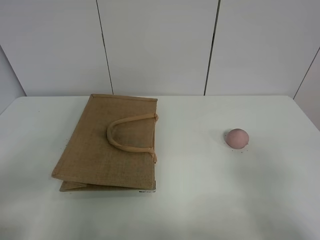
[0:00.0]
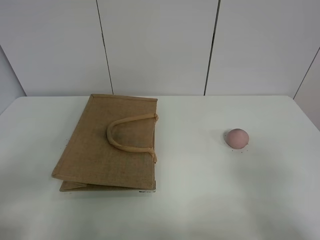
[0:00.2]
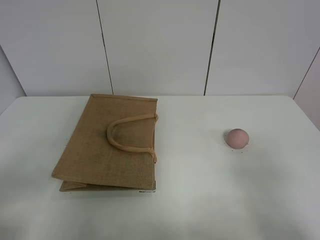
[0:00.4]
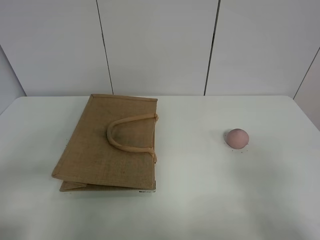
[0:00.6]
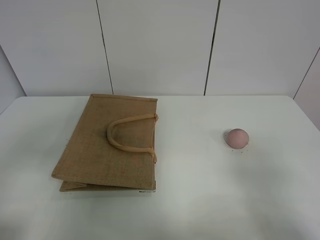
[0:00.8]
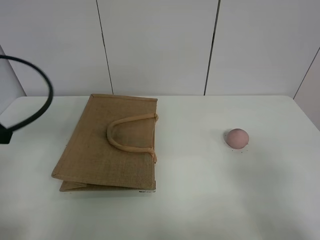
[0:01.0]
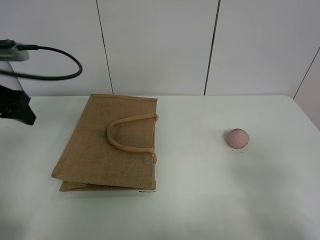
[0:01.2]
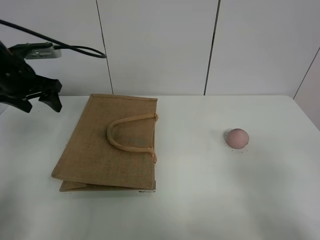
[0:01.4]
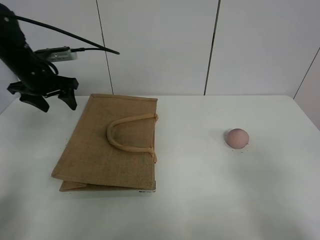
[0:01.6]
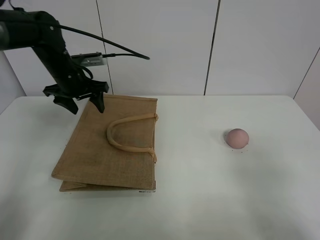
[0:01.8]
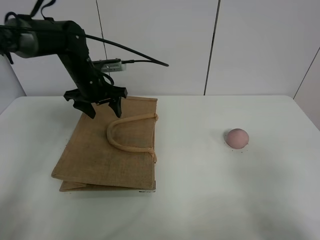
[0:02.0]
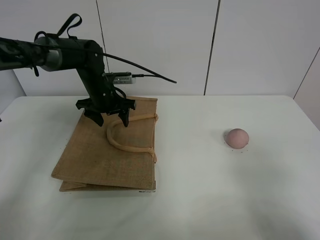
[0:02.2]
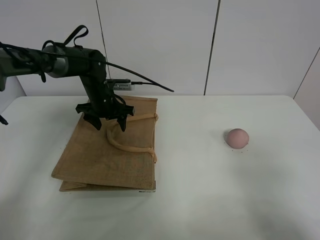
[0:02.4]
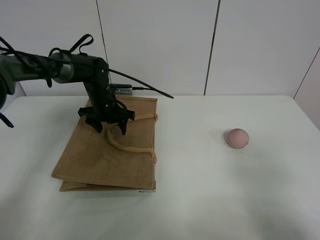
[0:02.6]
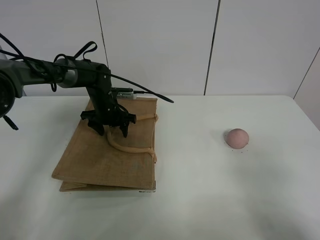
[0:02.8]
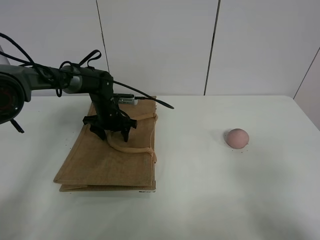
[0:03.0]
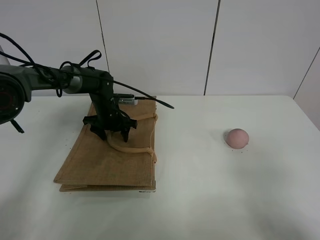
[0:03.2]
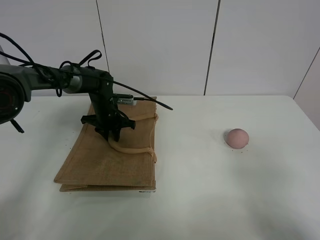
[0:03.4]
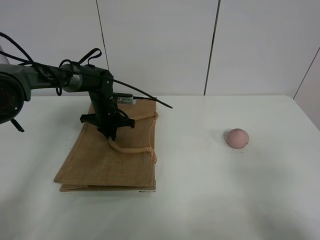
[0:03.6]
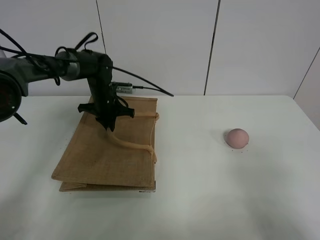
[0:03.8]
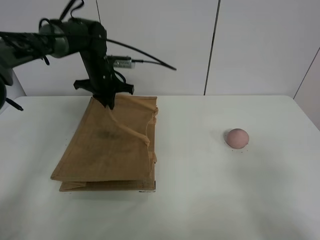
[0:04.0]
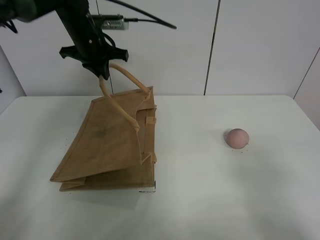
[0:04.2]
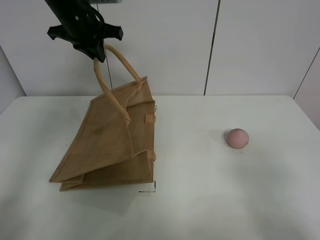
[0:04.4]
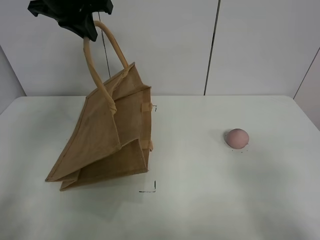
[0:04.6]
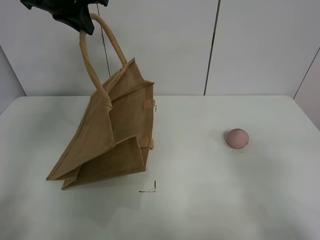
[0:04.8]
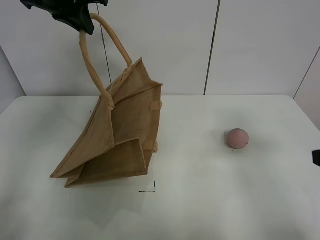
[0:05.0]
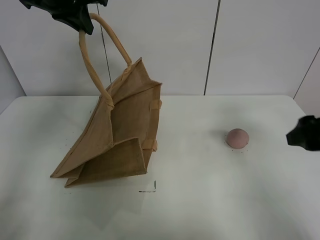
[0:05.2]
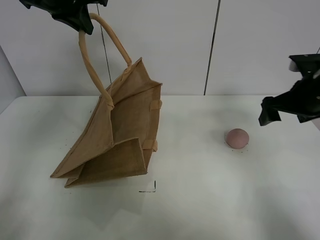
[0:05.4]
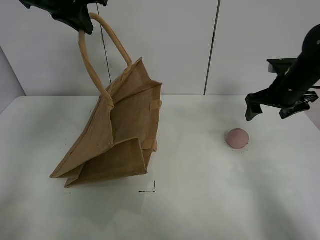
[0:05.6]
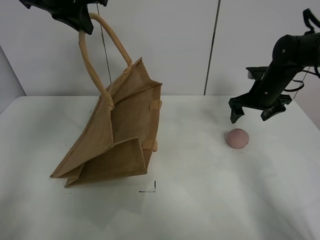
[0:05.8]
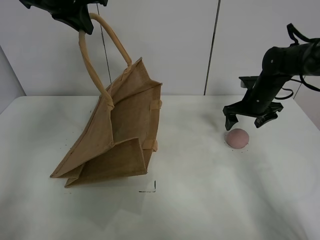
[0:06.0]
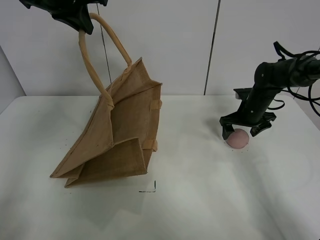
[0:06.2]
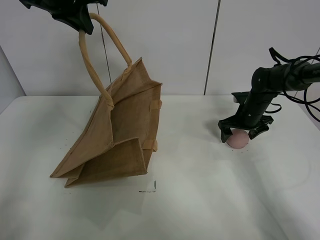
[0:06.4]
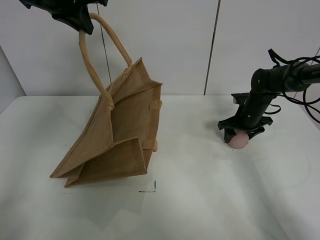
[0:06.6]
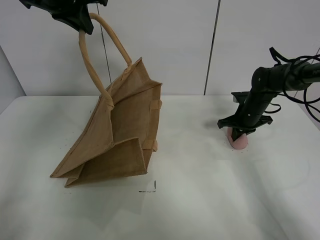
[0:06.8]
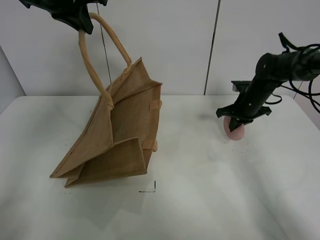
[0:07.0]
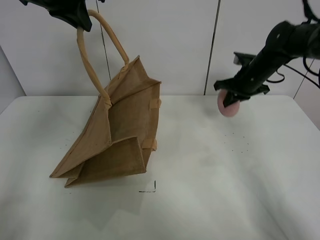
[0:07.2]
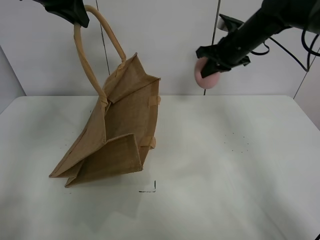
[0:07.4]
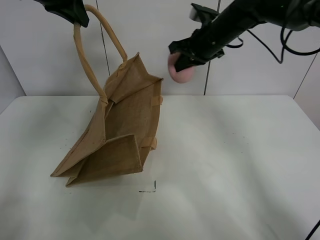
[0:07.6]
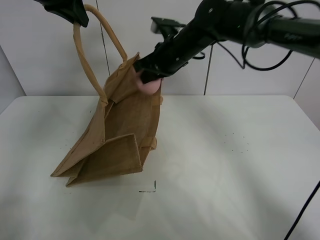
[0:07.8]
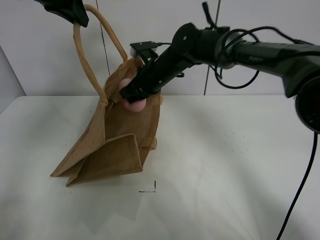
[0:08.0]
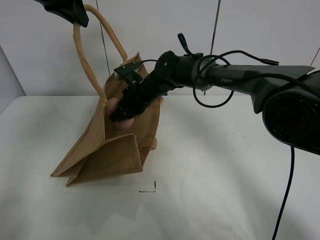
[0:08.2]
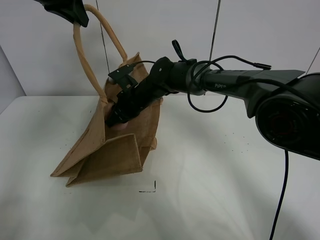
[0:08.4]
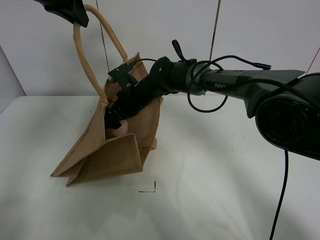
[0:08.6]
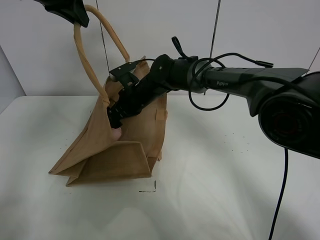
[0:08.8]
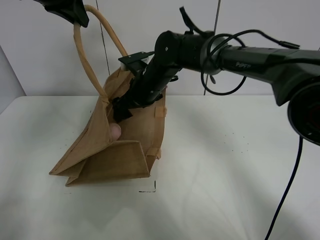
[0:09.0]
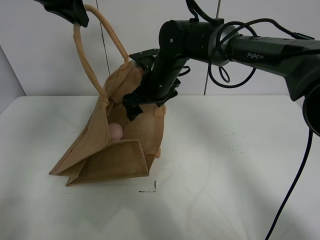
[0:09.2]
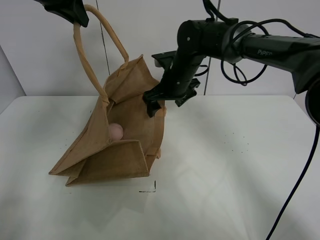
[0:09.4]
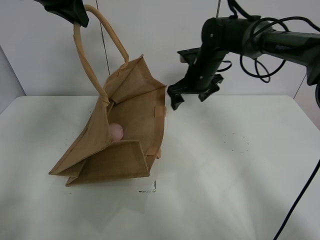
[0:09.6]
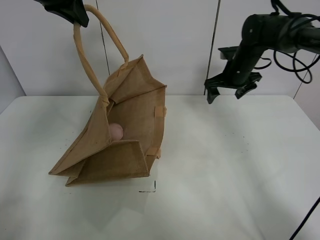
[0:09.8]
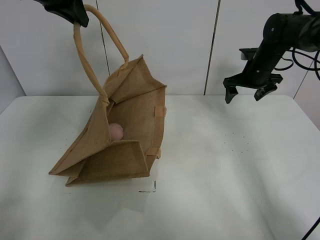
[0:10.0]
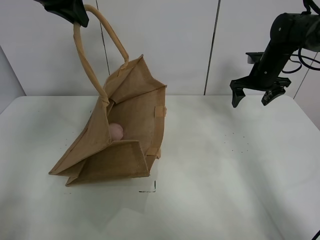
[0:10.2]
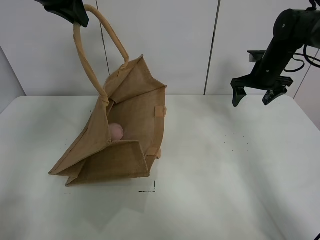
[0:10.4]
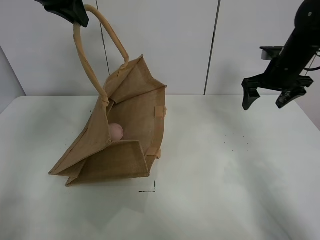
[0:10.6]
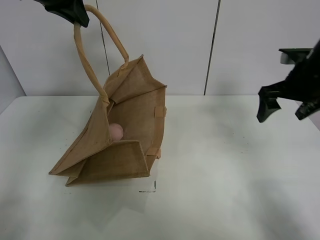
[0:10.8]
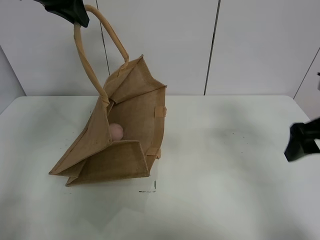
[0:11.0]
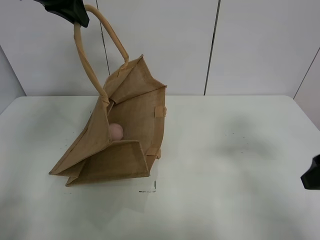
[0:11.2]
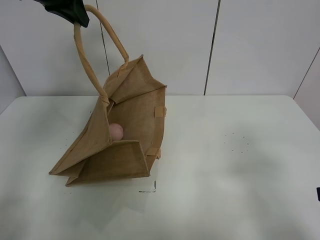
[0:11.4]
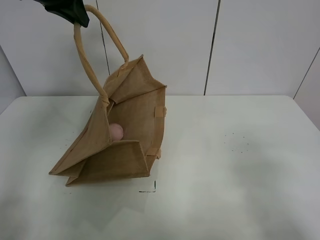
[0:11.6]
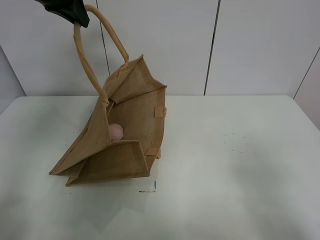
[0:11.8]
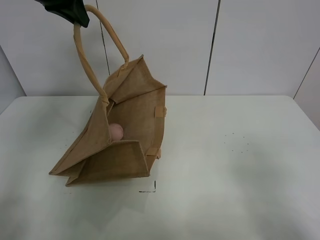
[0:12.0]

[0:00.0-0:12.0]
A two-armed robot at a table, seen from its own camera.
Task of the whole recording: open the brown linen bag and put the peach in the bag.
Step, 0:00.0 to 0:04.6: Lift the handbag with left gripper.
Step, 0:04.8 to 0:06.8: Grasp the peach with right gripper.
Step, 0:07.0 to 0:09.6: Place the peach in the handbag with right gripper.
0:00.0 to 0:01.6: The left gripper travels forward by about 40 cm.
0:01.6 to 0:03.0: The left gripper travels downward and to the right by some 20 cm.
0:03.0 to 0:04.4: The left gripper travels upward by some 25 cm, and closes its fingers.
0:04.4 to 0:06.0: The right gripper travels forward by about 40 cm; the left gripper travels upward by approximately 5 cm.
0:06.0 to 0:07.6: The right gripper goes some 20 cm to the left and upward, and closes up.
0:07.6 to 0:09.0: The right gripper heads to the left and downward, covering approximately 15 cm, and opens up.
0:09.0 to 0:10.4: The right gripper moves to the right, approximately 30 cm.
0:10.4 to 0:12.0: The right gripper travels backward by some 50 cm.

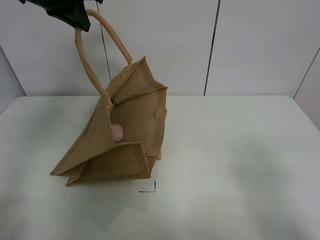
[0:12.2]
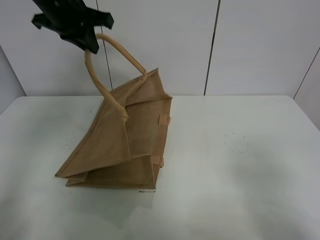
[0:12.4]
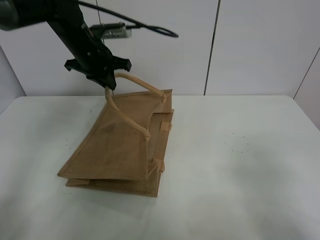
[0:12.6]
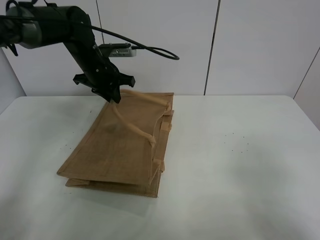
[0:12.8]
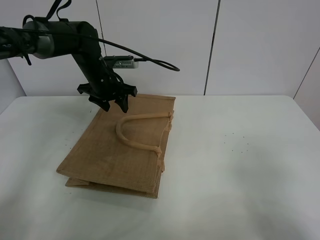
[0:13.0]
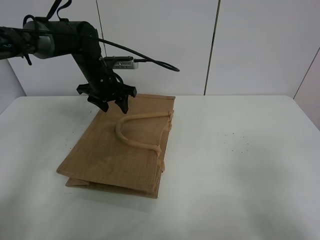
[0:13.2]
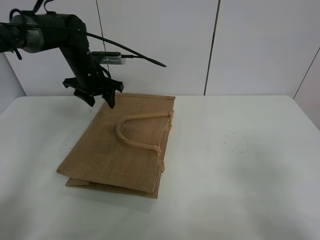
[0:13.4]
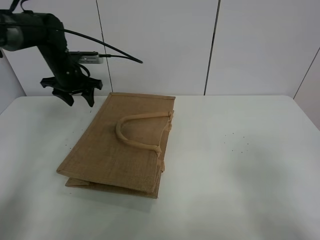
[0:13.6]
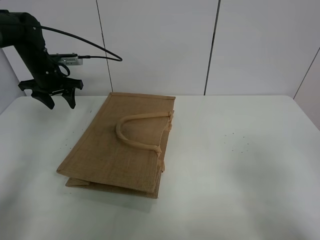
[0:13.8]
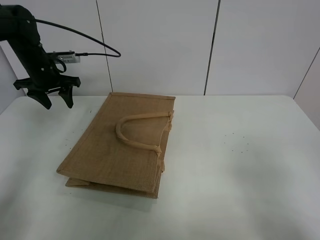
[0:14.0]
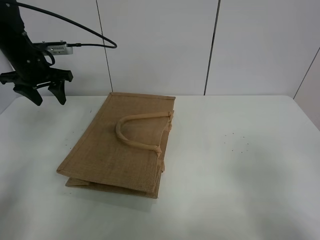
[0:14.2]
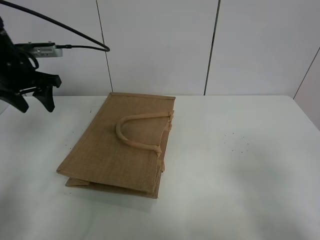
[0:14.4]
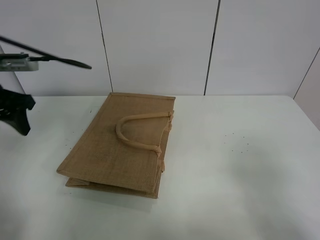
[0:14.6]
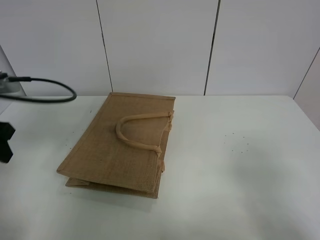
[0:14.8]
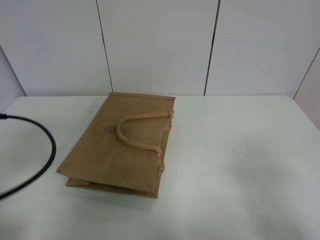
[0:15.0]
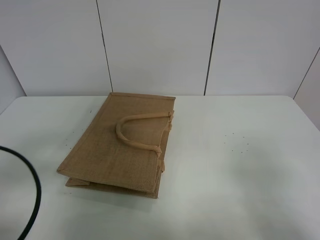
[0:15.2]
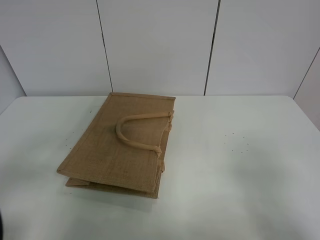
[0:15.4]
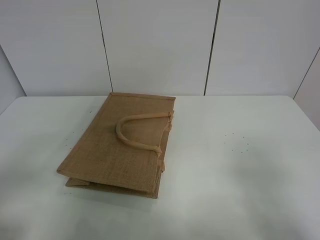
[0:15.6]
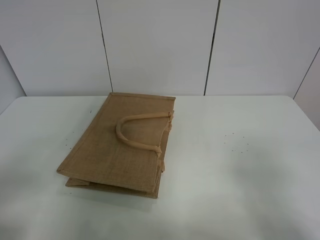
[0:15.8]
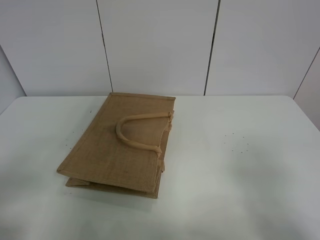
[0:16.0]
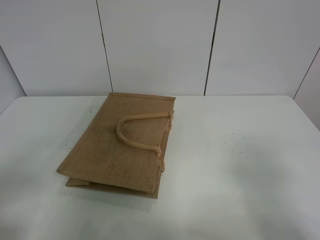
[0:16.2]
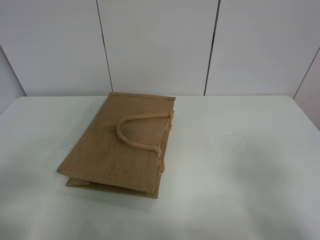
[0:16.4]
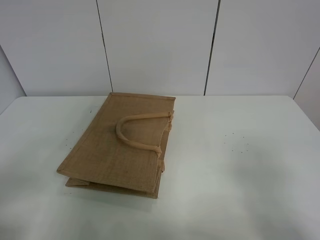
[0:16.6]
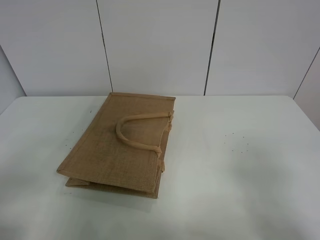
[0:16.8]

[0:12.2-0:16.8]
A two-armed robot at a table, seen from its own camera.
Task of the whole recording: open the brown linen bag and put the peach in the bag.
0:12.2 to 0:13.8: The left gripper travels downward, to the left and forward by about 25 cm, and opens up.
0:13.8 to 0:15.2: The left gripper goes approximately 40 cm backward.
0:15.2 to 0:16.8: The left gripper heads backward, covering about 10 cm.

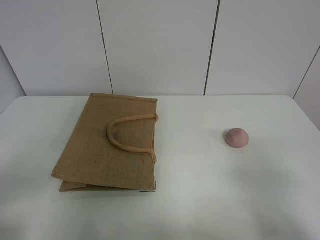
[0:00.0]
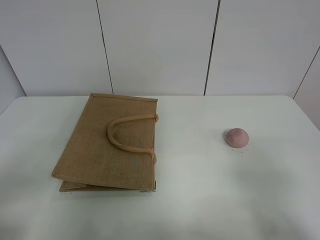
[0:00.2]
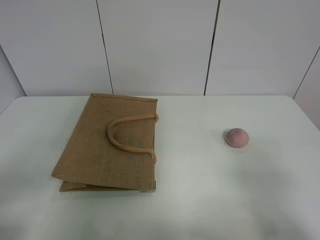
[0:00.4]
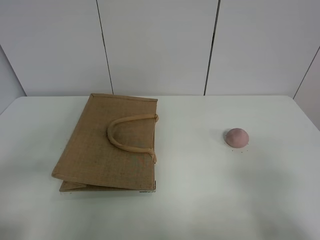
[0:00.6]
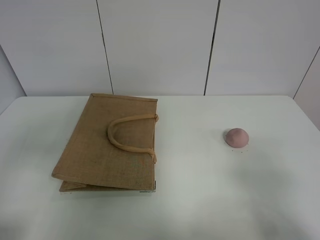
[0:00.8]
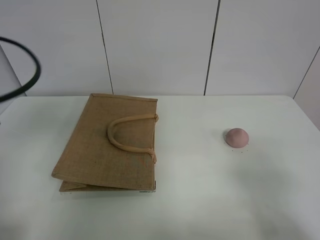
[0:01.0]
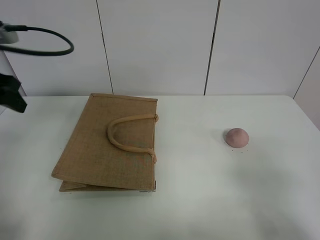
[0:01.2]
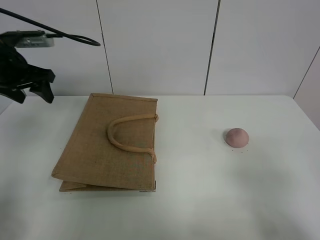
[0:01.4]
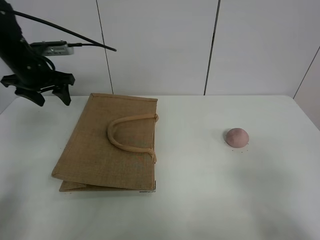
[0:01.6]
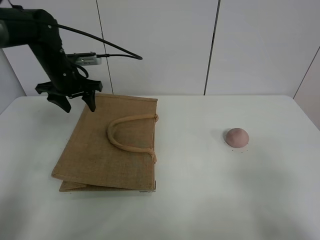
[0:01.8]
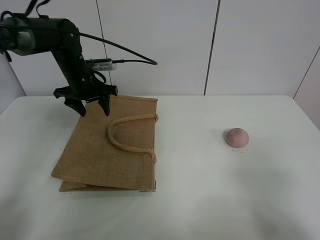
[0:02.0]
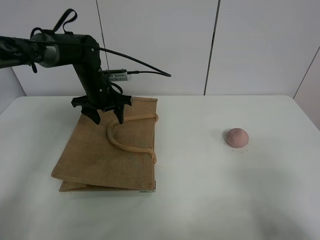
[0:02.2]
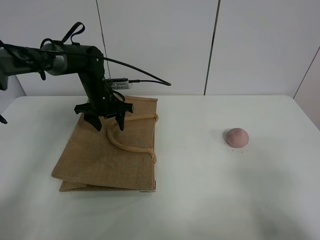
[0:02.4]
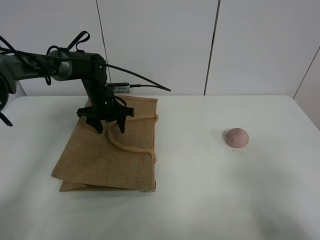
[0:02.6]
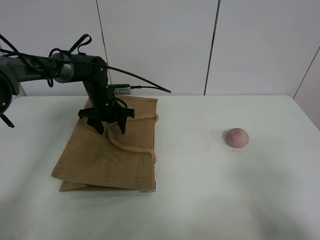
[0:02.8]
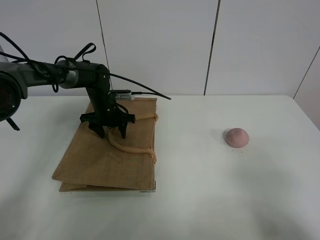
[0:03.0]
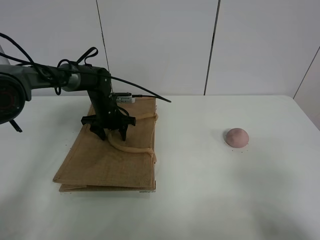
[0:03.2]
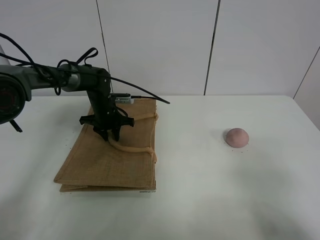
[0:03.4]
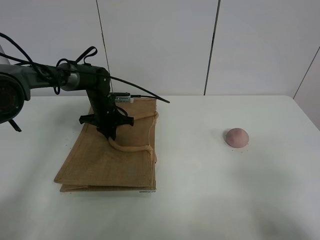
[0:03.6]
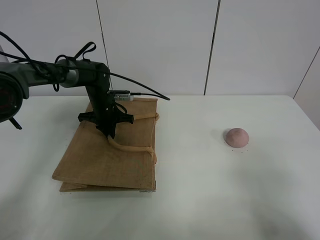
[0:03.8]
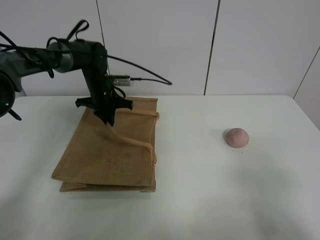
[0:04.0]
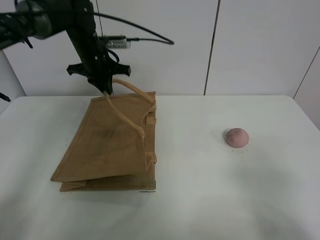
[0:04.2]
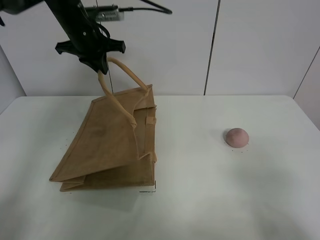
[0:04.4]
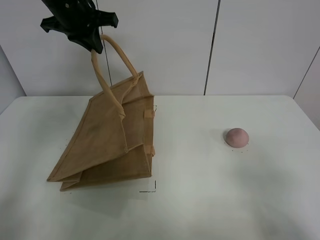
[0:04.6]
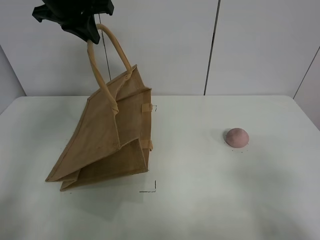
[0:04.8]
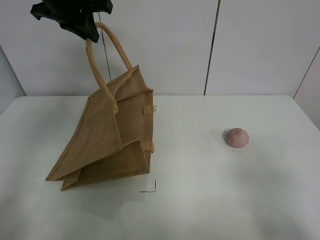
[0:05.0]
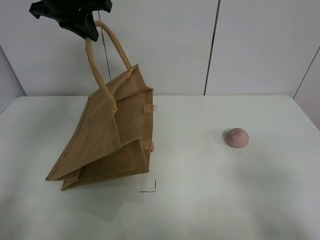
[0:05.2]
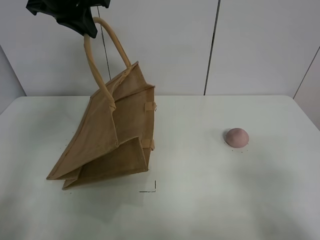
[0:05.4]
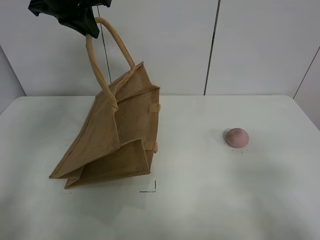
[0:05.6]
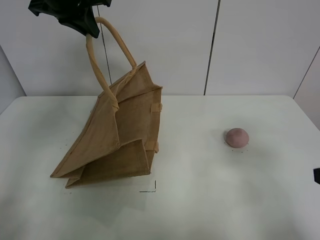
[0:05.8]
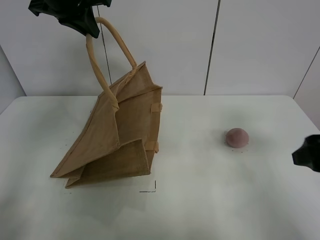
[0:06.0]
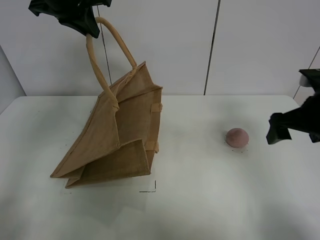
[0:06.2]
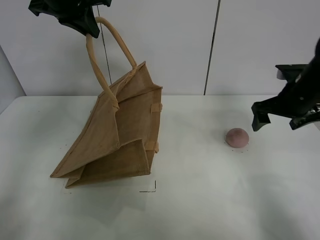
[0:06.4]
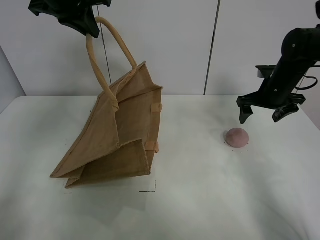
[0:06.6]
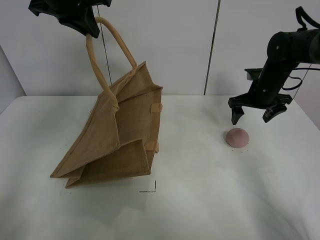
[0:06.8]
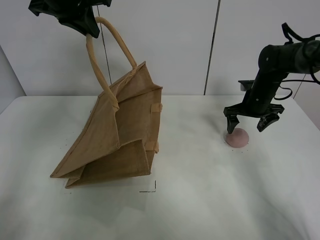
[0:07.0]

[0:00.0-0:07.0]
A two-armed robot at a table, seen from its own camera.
Task of the whole recording: open the brown linen bag and put the peach in the bag.
Step, 0:00.0 to 0:05.4: Lift the handbag with left gripper.
0:00.0 to 0:01.4: The left gripper shifts some 35 cm forward.
0:01.4 to 0:02.8: The left gripper heads downward, to the right and forward, covering some 25 cm.
0:02.8 to 0:04.2: The left gripper heads upward, covering about 15 cm, and closes its fingers.
0:04.2 to 0:05.6: The left gripper heads upward and backward, covering roughly 15 cm.
0:05.6 to 0:07.0: The right gripper shifts roughly 40 cm forward.
